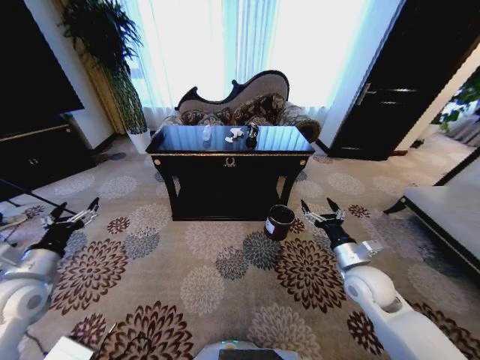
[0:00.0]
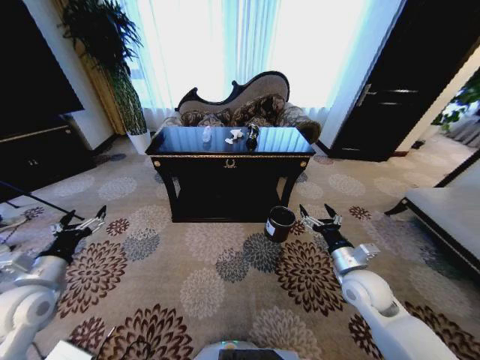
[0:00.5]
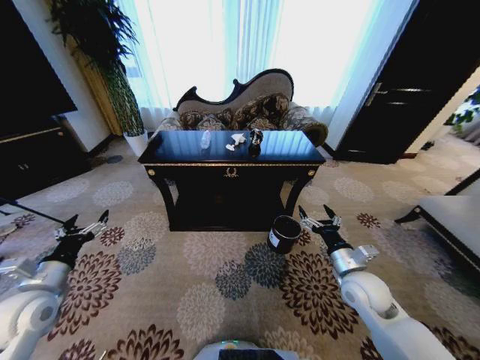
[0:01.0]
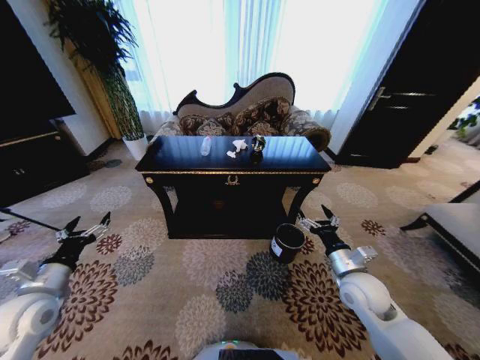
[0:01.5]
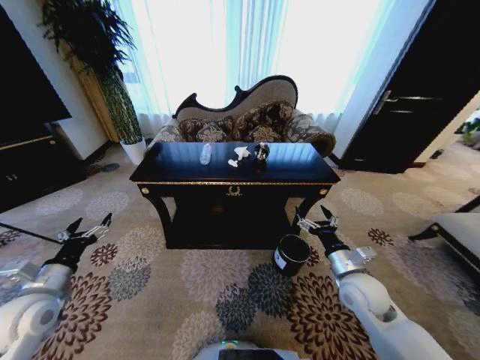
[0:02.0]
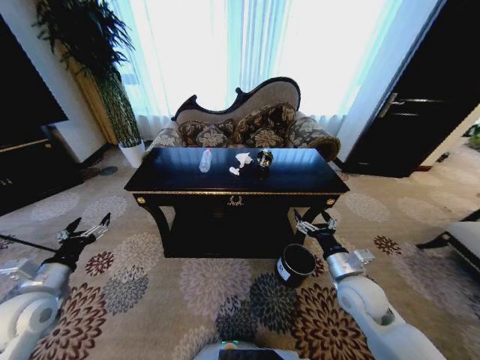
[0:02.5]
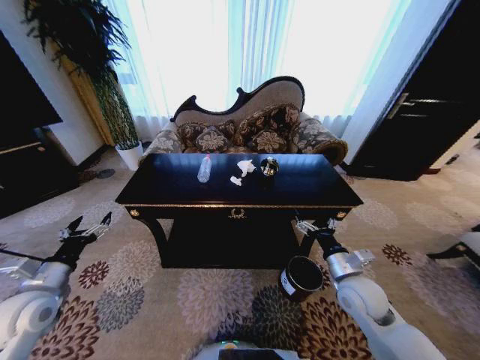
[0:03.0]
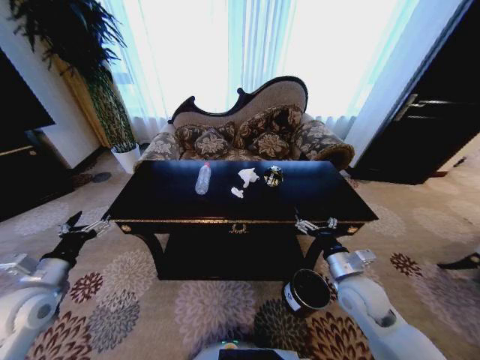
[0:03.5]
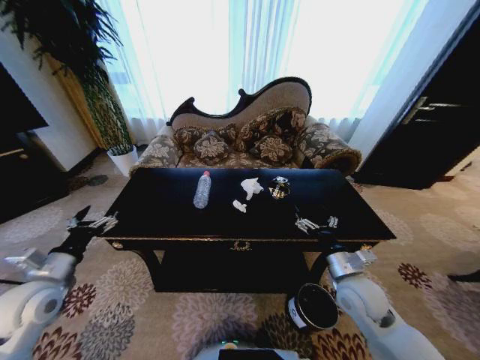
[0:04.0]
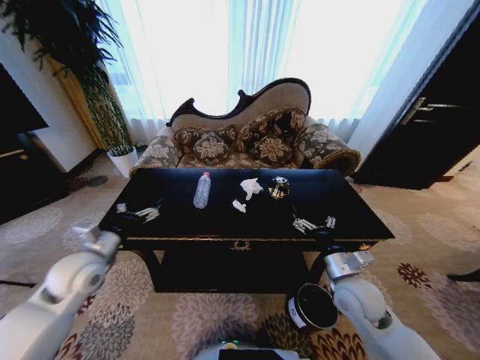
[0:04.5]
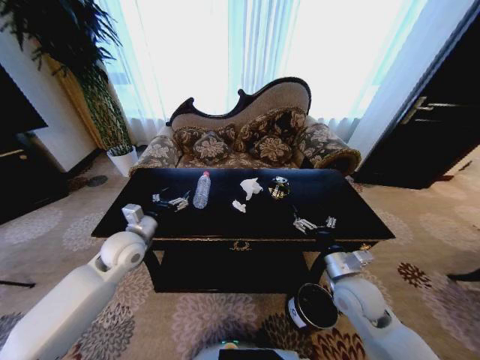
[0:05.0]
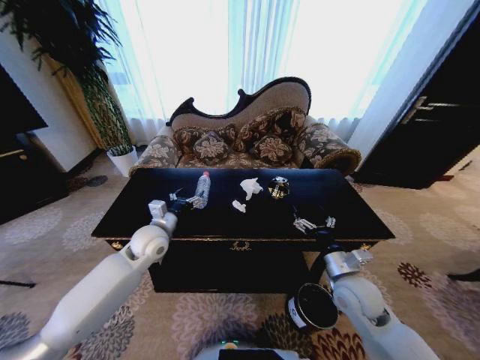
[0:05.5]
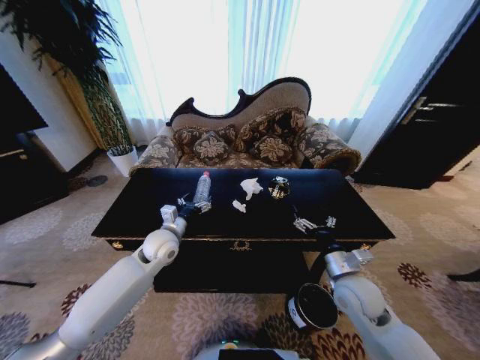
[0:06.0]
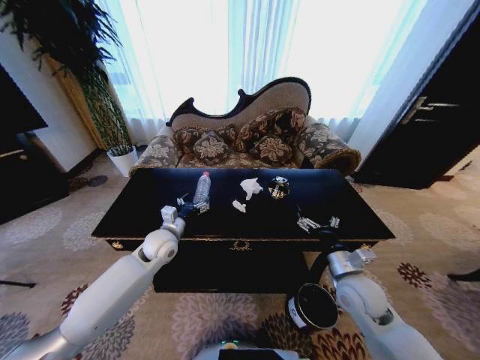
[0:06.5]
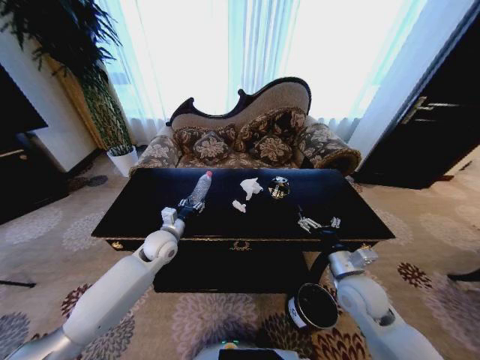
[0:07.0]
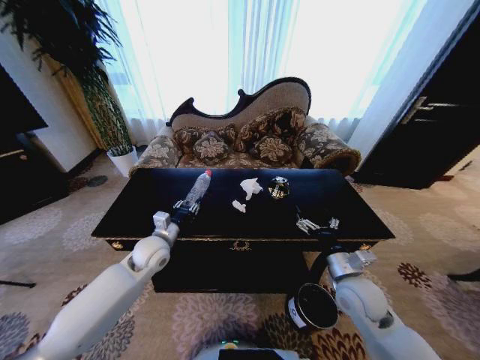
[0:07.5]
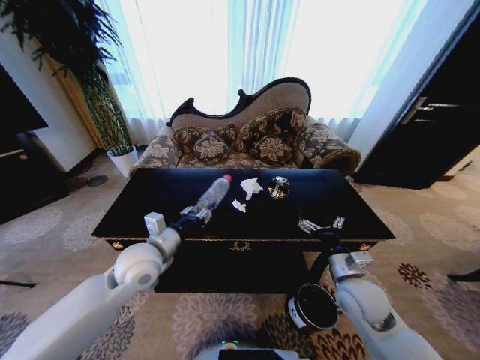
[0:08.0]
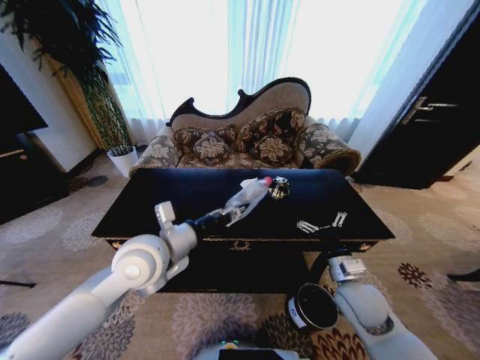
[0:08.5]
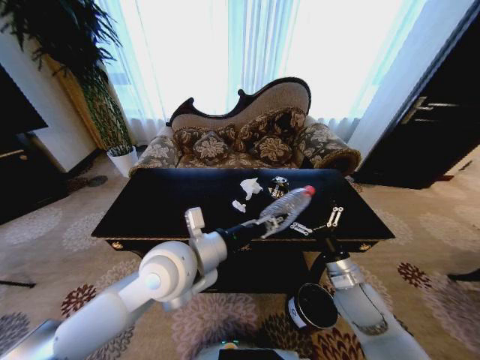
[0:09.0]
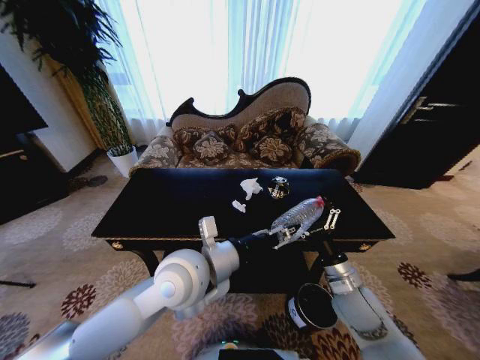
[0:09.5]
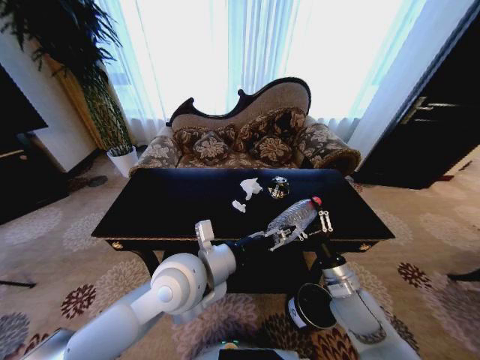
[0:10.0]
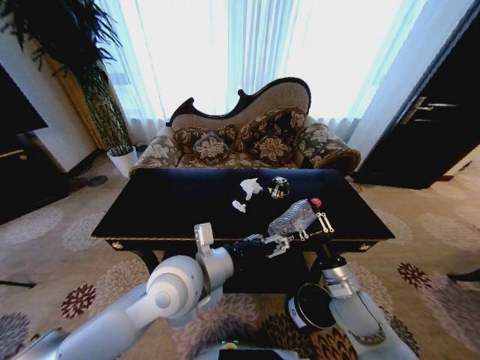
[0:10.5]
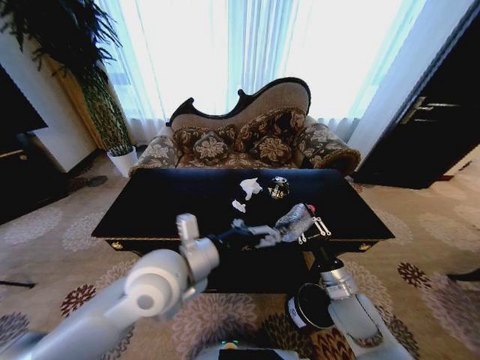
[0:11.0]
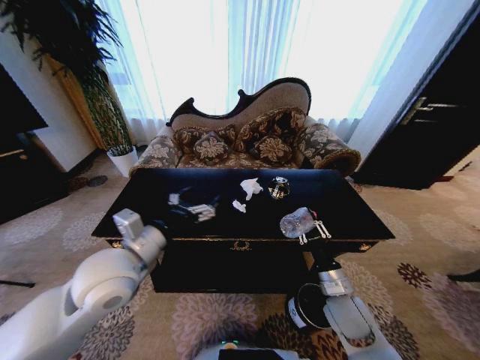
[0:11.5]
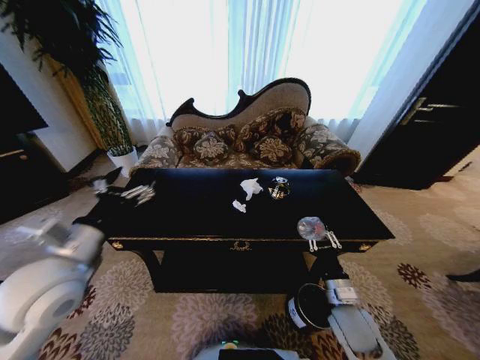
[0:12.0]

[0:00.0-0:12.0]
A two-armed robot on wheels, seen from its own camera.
Task of the whole recording: Move to the front of the table and place the trash on the table into the trash bin.
0:04.0 to 0:06.0: The left gripper travels to the right and forward by about 25 cm.
0:06.0 to 0:08.0: The left gripper goes some 10 cm backward and upward, and closes up.
0:08.0 to 0:10.0: The left gripper heads to the right, covering some 10 cm. Meanwhile the right gripper closes its fingers.
0:10.0 to 0:12.0: The right gripper ends up some 5 cm from where it was, and closes; the left gripper is displaced to the left by approximately 20 cm, and opens up.

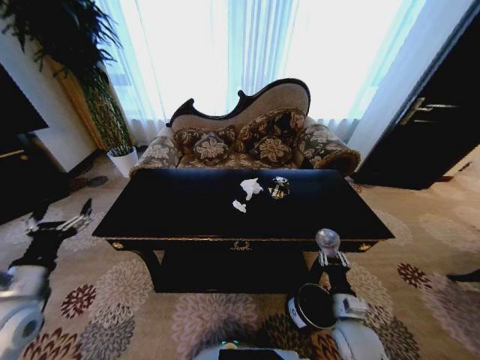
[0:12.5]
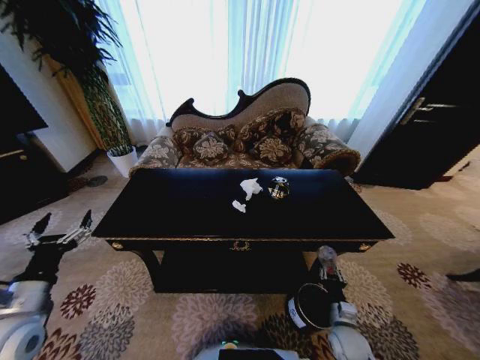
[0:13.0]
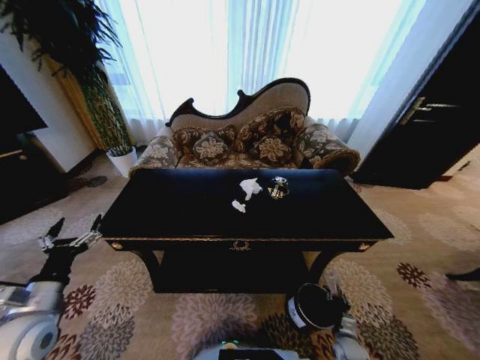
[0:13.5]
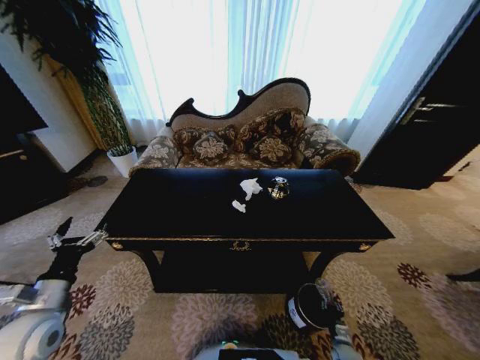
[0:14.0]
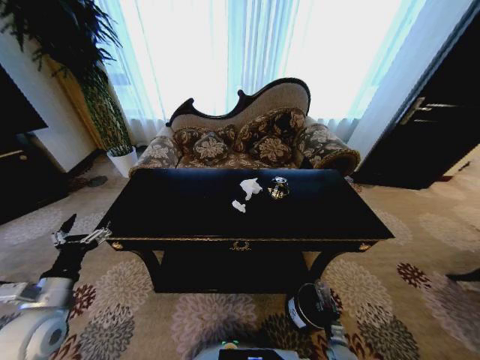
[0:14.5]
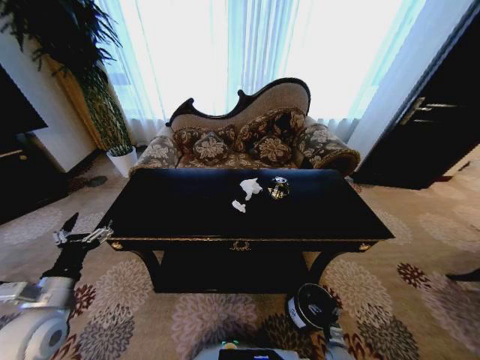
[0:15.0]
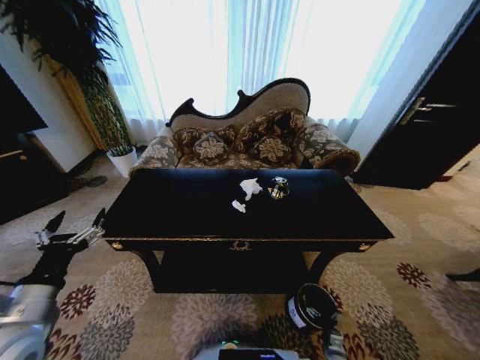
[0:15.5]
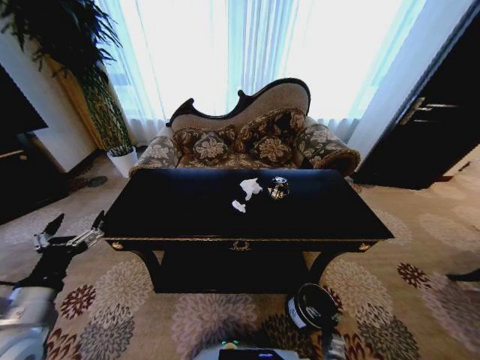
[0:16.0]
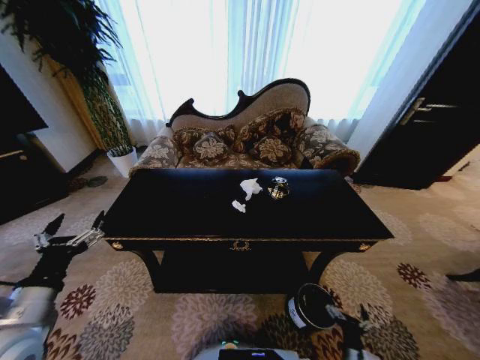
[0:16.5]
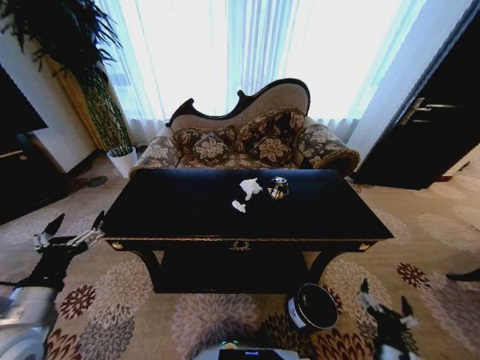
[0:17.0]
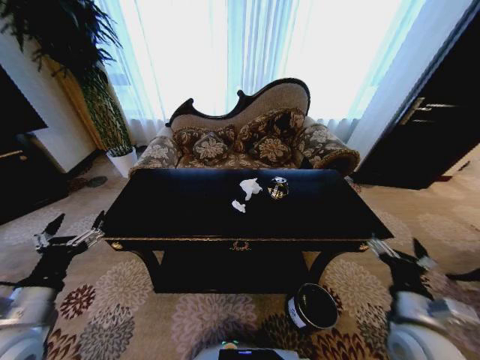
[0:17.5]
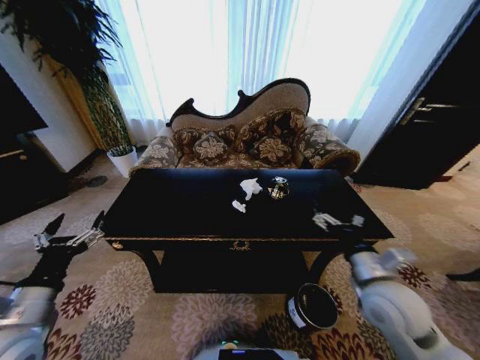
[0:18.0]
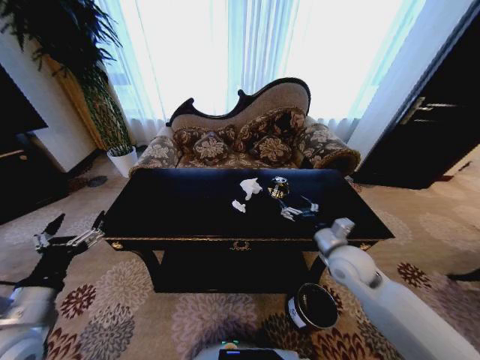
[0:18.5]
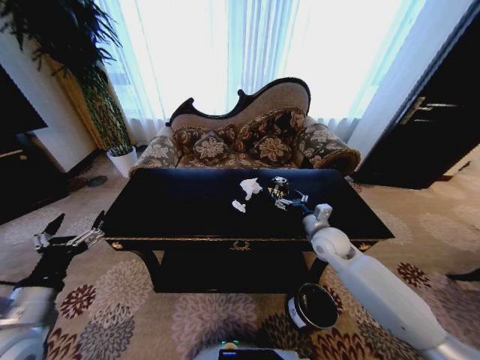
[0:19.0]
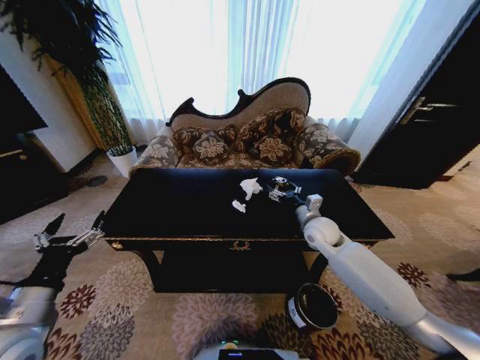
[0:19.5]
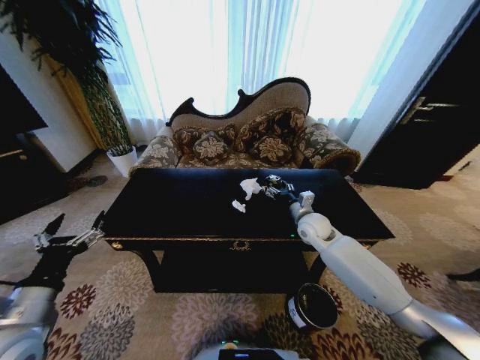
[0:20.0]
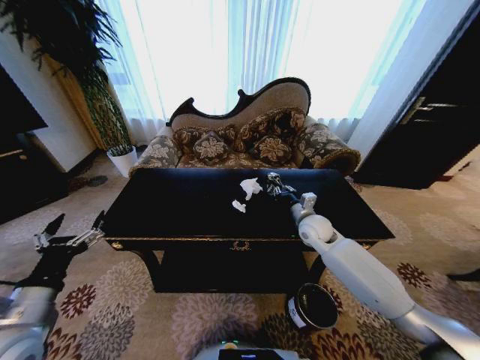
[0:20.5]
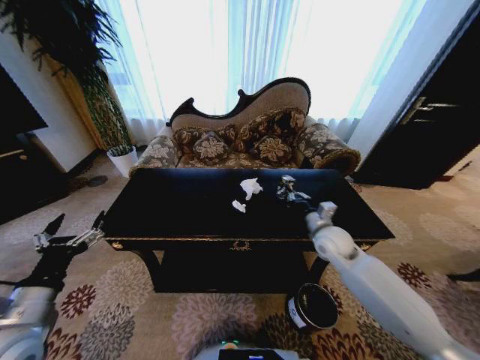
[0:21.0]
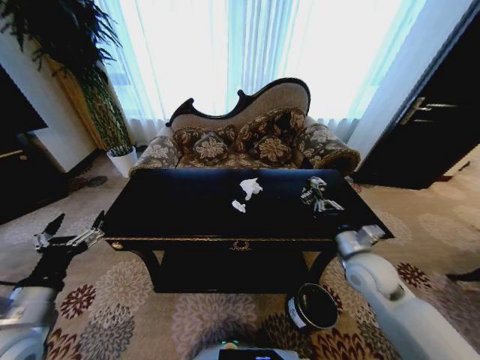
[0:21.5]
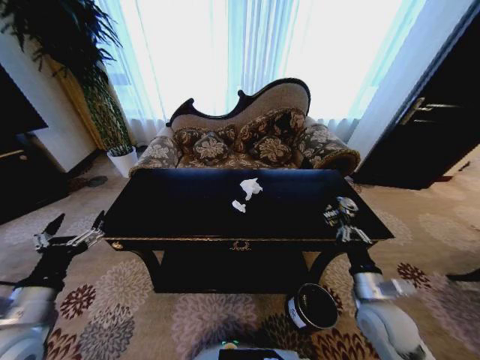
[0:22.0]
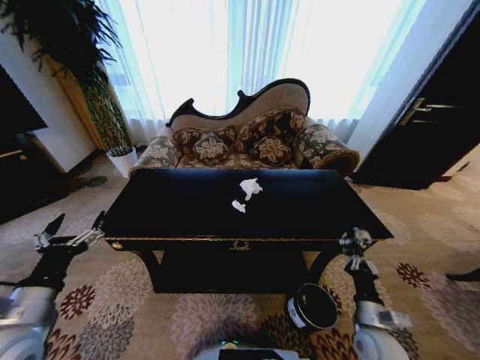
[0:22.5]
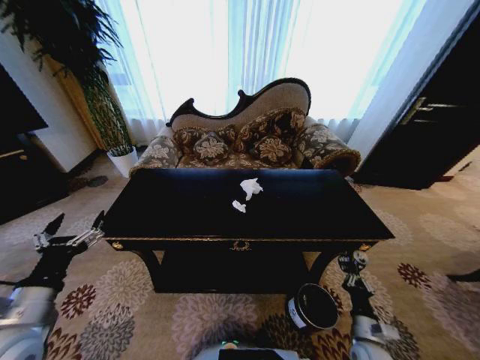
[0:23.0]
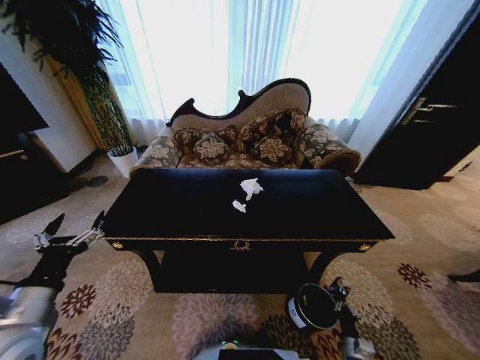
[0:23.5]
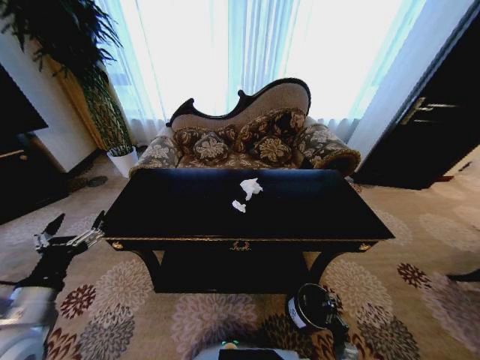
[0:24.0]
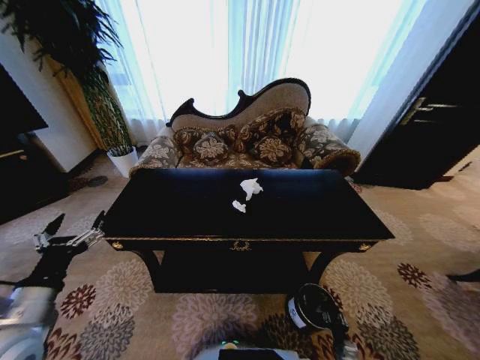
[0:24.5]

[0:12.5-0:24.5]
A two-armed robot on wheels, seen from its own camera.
Task of the whole recording: Move to the front of the table and place the trash on the table into the trash bin.
0:12.5 to 0:14.5: The right gripper is displaced downward by roughly 30 cm. Meanwhile the left gripper ends up roughly 5 cm from where it was.
0:14.5 to 0:16.5: The left gripper shifts about 5 cm upward. The right gripper travels upward, to the left and backward by roughly 20 cm, and opens its fingers.
0:16.5 to 0:18.5: The right gripper shifts about 40 cm upward and forward.
0:18.5 to 0:20.5: The right gripper heads forward, covering roughly 10 cm, and closes up.
0:20.5 to 0:22.5: The right gripper is displaced backward and downward by some 30 cm.
0:22.5 to 0:24.5: The right gripper moves downward, some 25 cm, and opens up.

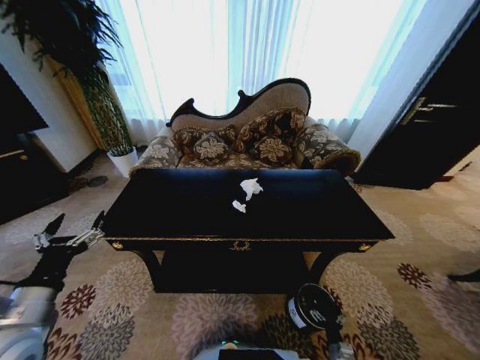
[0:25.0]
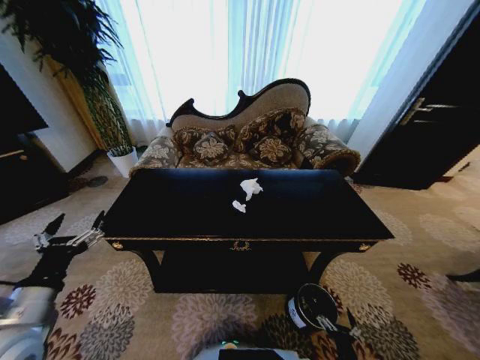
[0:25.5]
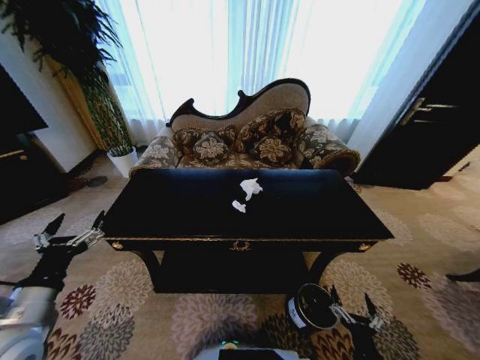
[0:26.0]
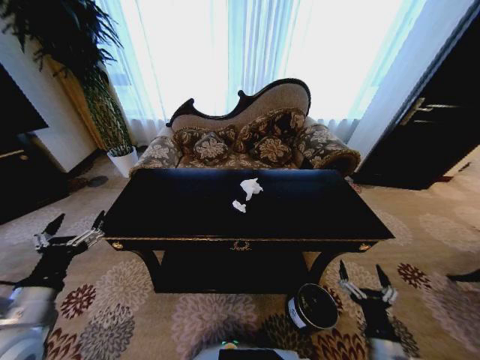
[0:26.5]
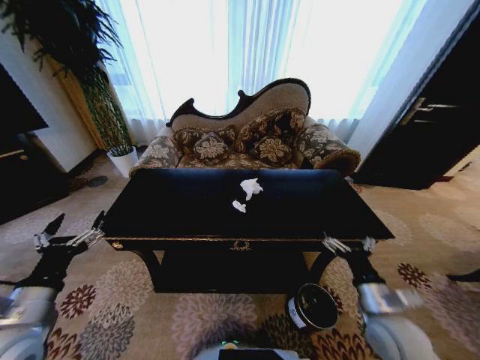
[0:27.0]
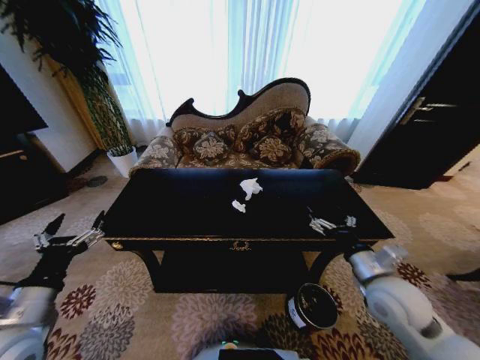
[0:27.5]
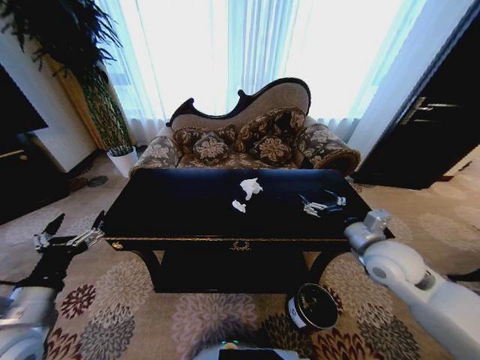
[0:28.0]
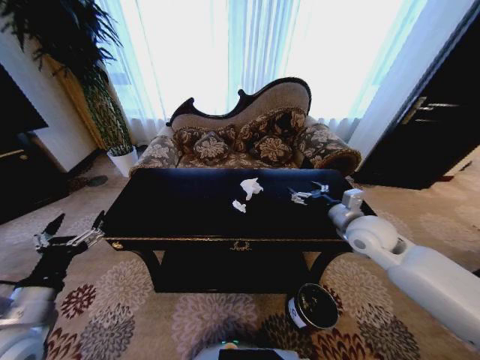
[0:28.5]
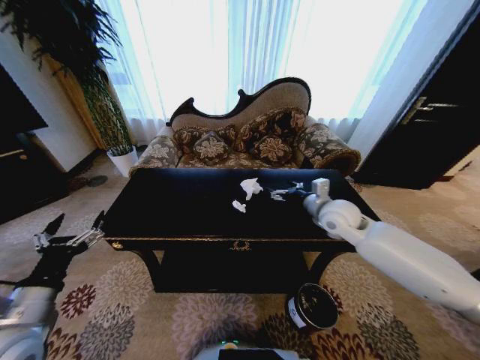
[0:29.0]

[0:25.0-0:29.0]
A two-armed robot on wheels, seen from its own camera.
Task of the whole recording: Move to the front of the table and place the trash on the table into the trash bin.
0:25.0 to 0:27.0: The right gripper moves upward, about 35 cm.
0:27.0 to 0:29.0: The right gripper travels forward and upward by some 25 cm.
